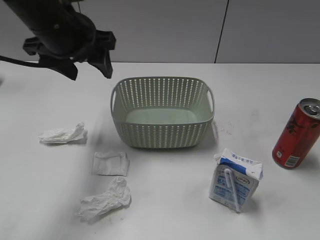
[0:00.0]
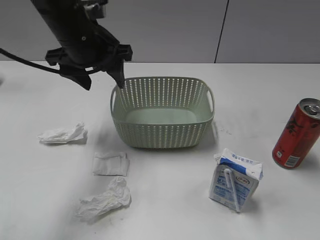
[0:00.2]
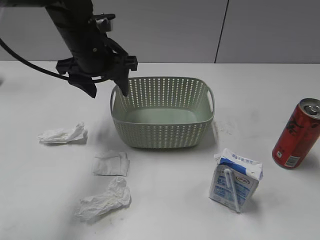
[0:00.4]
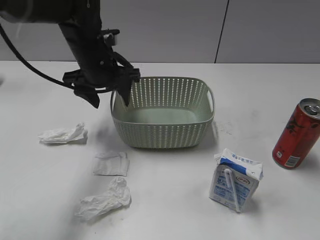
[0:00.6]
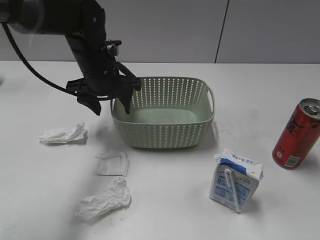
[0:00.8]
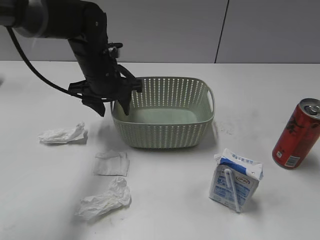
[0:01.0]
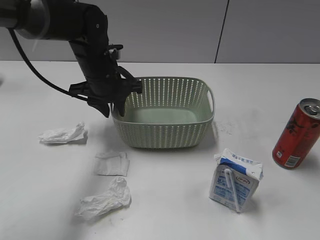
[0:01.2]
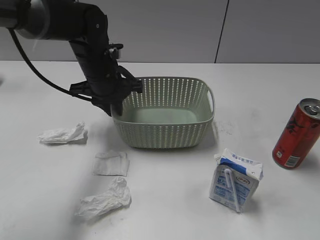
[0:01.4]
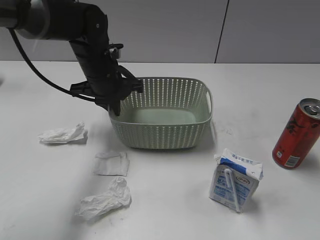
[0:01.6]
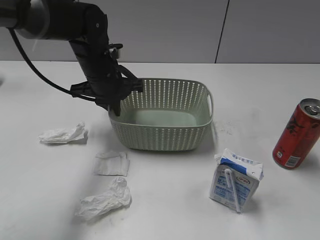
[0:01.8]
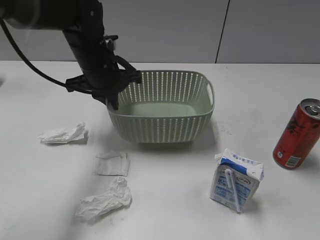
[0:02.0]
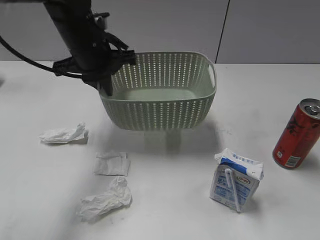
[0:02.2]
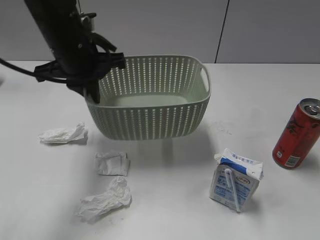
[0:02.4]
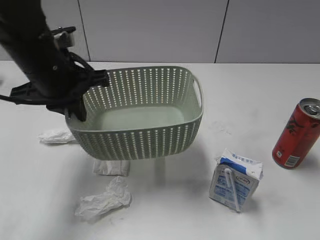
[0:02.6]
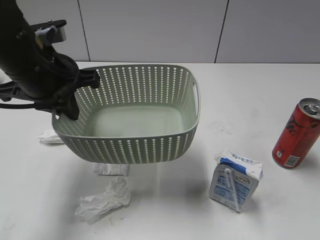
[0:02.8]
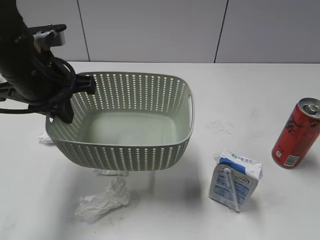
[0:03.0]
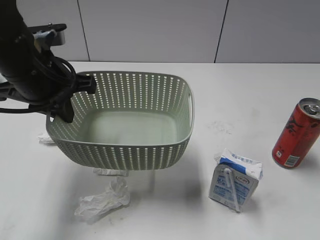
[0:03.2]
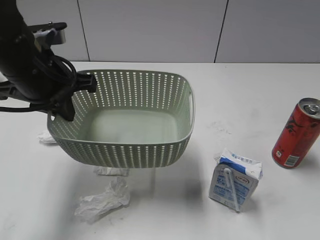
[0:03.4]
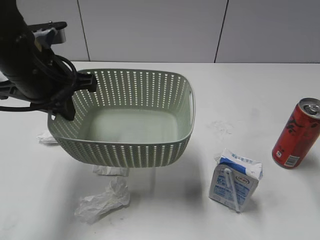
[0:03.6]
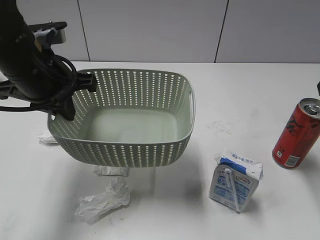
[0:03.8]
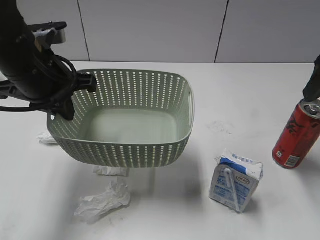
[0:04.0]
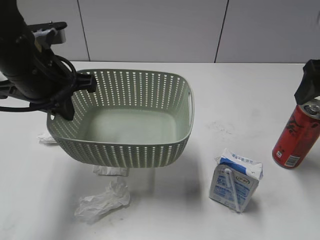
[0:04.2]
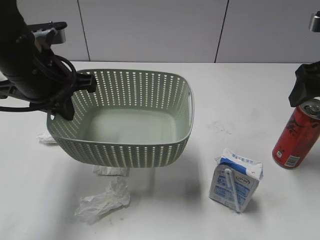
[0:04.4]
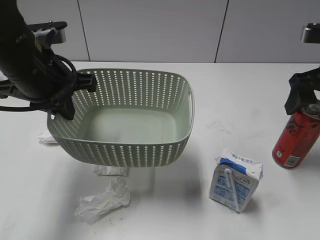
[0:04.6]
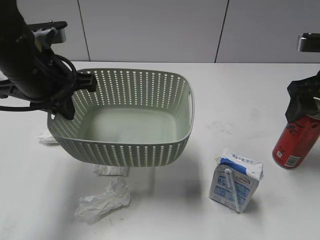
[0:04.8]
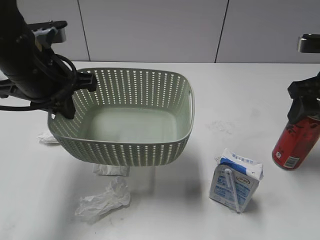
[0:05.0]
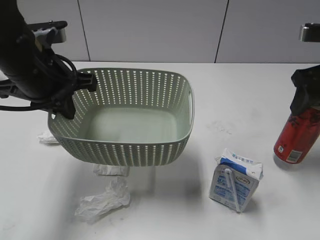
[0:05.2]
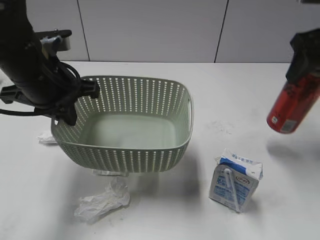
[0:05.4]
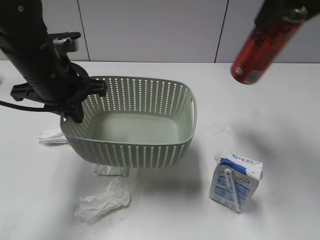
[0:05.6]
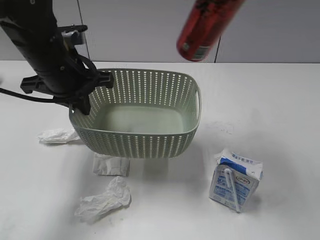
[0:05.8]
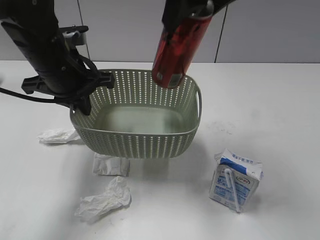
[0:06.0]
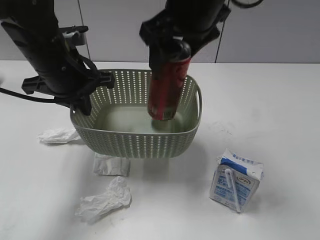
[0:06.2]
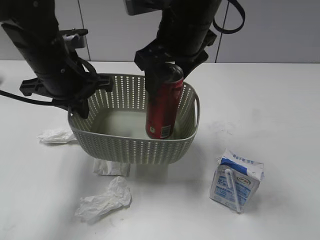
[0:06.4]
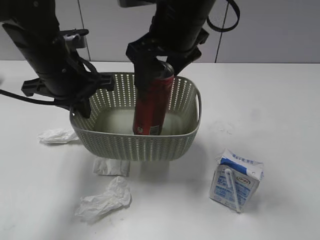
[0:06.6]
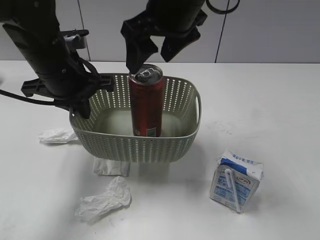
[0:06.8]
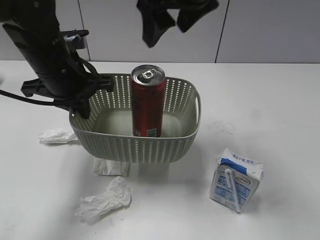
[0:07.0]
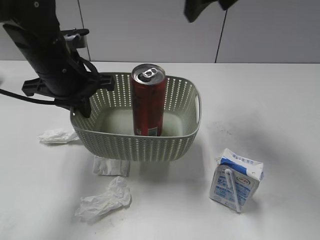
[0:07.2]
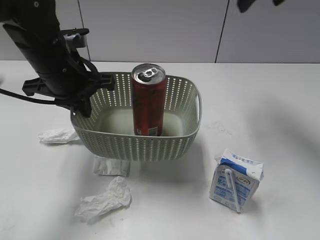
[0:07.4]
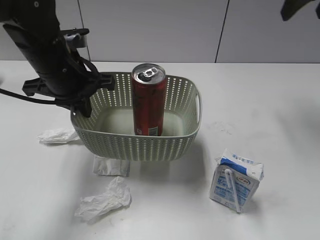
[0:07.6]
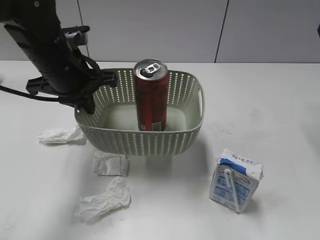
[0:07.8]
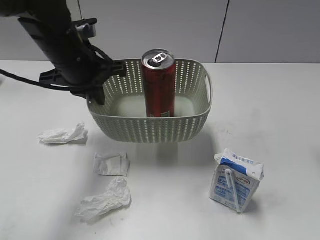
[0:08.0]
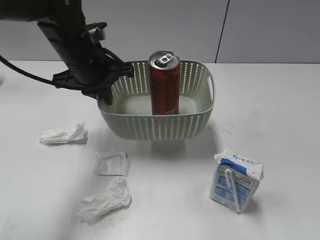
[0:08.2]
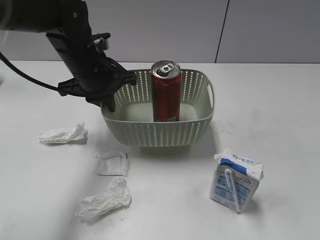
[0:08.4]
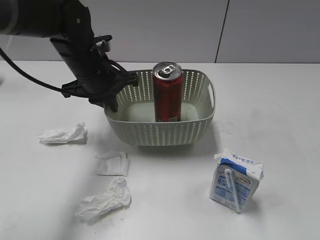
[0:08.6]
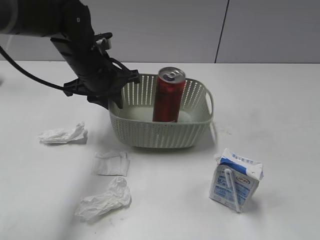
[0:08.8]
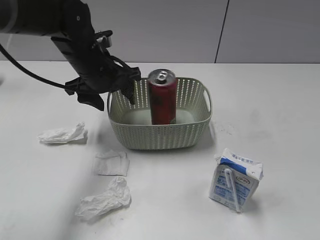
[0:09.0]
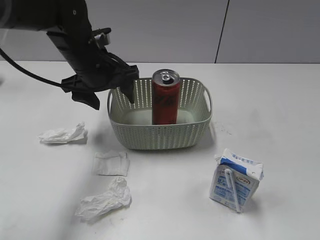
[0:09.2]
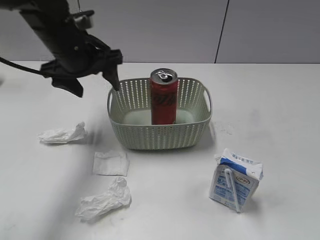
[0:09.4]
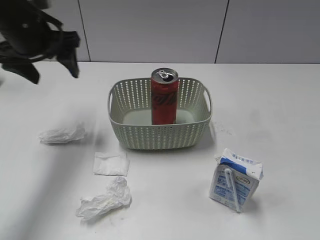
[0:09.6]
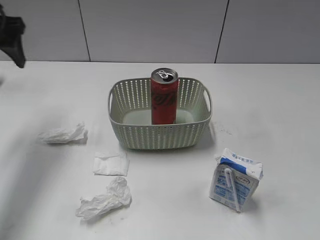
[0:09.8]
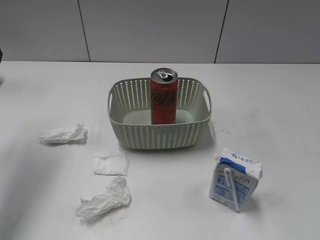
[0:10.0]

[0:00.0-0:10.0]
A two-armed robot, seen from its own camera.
Step, 0.0 to 1.6 s: Grasp the basket with left gripper.
Step, 1.8 to 3.6 s: Lift the basket with left gripper.
Step, 3.8 to 5.0 s: Grasp the cola can with right gripper.
Step, 5.2 to 6.8 s: Place the cola can in the basket with right gripper.
0.0 to 1.4 s: The left gripper travels downward and forward by some 10 cm, and closes up.
1.4 to 2.8 s: The left gripper goes some 15 cm backward, upward and to the left.
2.8 to 4.2 s: The right gripper moves forward, roughly 30 cm, and opens up.
4.2 to 5.8 s: The right gripper heads to the left and upward, covering some 25 cm, and closes.
5.8 to 7.2 s: The right gripper travels forward by about 10 cm, moves about 15 cm downward and comes back, and opens.
7.2 to 8.6 s: The right gripper is displaced backward and to the right by approximately 35 cm, while the left gripper moves forward, about 5 cm.
8.6 to 10.0 s: The left gripper goes about 25 cm to the left, upward and backward, and opens up, while the right gripper shifts roughly 10 cm backward.

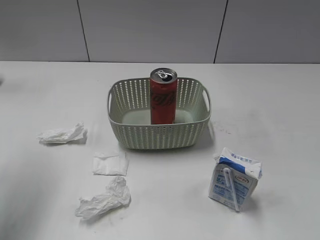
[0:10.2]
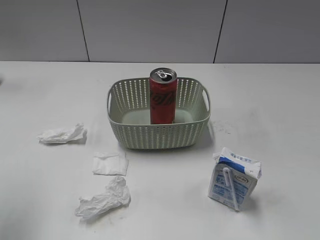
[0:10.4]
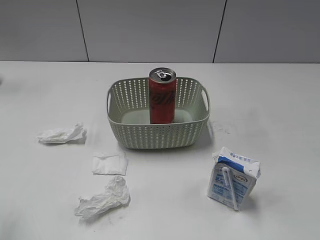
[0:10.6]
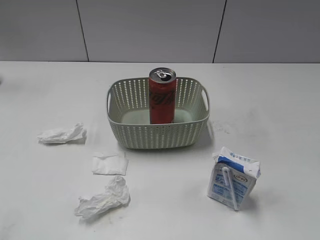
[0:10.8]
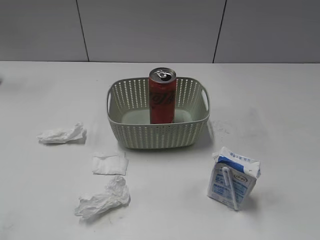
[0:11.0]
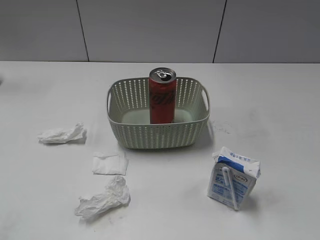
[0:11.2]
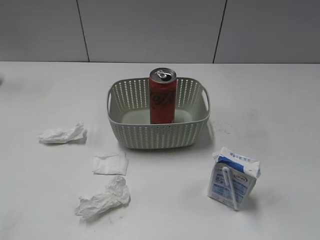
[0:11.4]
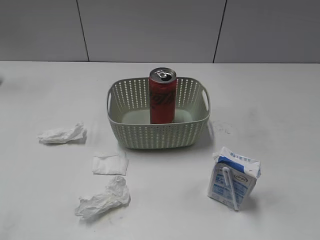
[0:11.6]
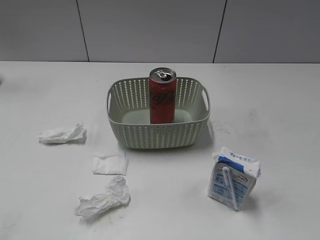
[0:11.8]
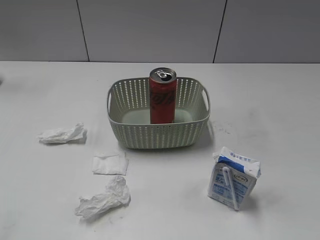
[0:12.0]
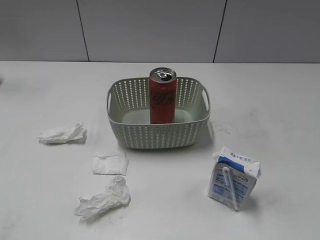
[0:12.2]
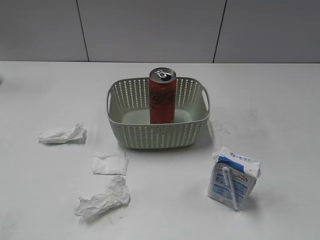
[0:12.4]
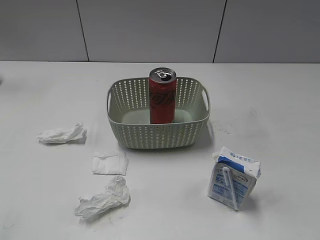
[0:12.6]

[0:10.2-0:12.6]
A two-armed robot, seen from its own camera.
10.2 to 11.4 s: The left gripper moves backward, some 25 cm.

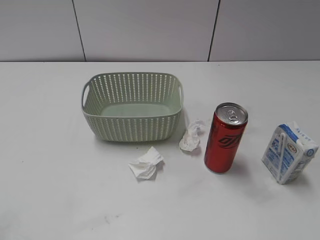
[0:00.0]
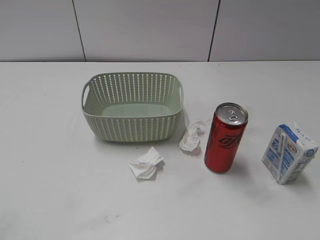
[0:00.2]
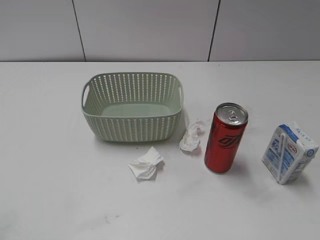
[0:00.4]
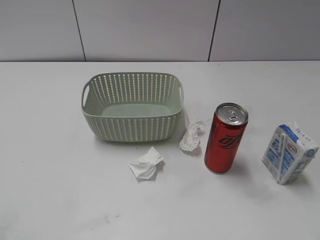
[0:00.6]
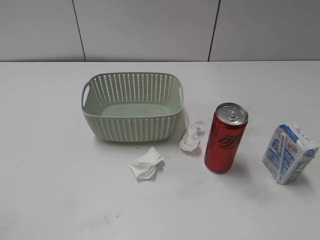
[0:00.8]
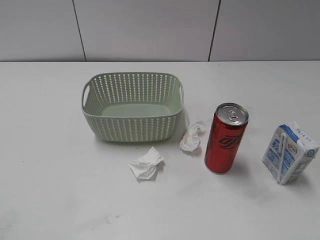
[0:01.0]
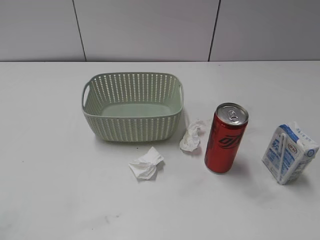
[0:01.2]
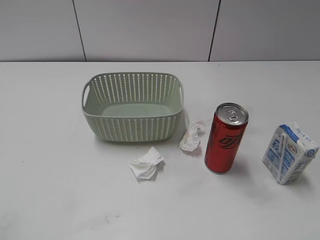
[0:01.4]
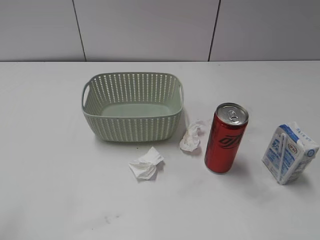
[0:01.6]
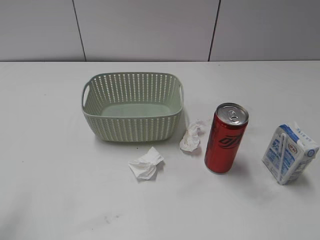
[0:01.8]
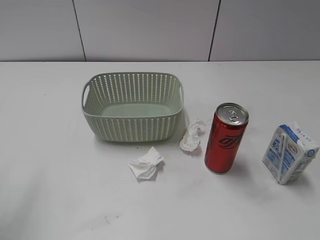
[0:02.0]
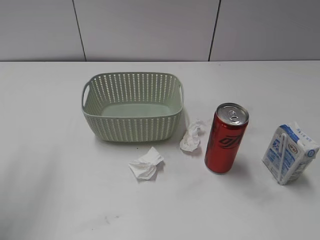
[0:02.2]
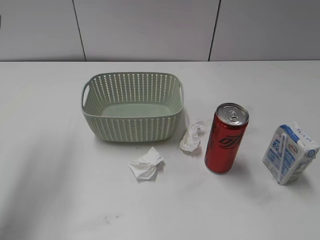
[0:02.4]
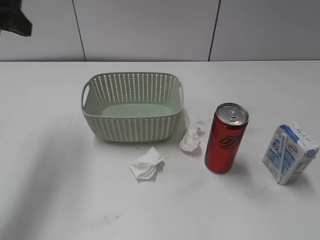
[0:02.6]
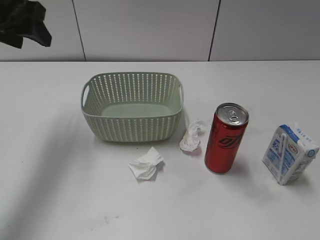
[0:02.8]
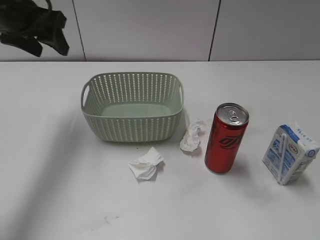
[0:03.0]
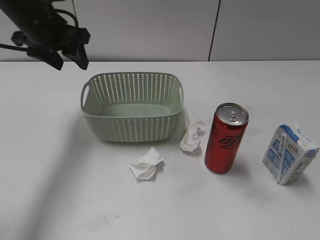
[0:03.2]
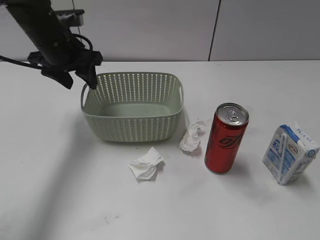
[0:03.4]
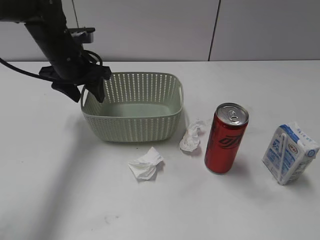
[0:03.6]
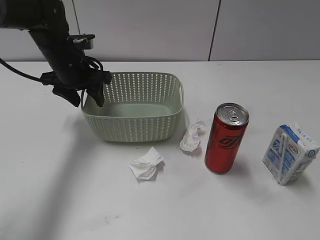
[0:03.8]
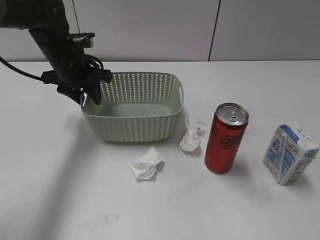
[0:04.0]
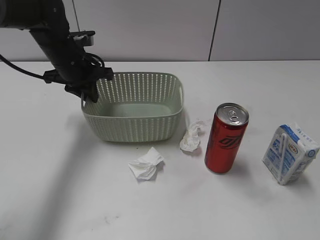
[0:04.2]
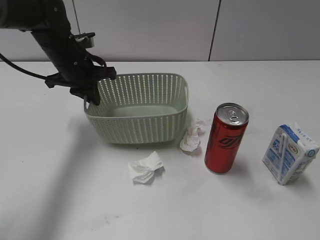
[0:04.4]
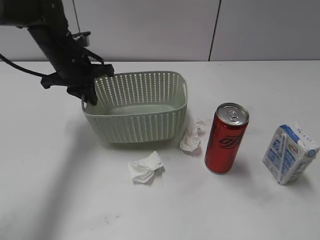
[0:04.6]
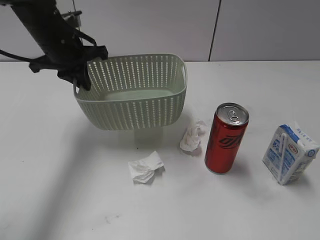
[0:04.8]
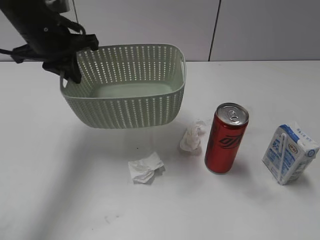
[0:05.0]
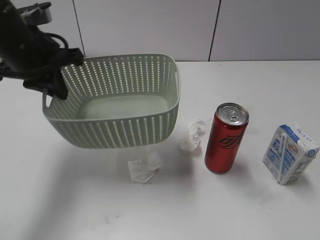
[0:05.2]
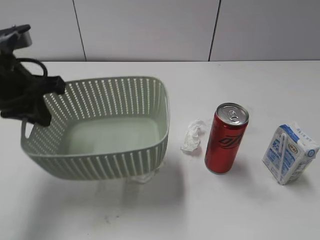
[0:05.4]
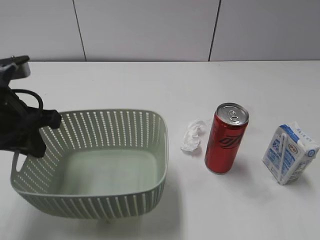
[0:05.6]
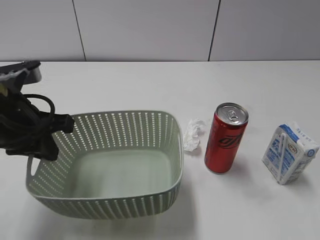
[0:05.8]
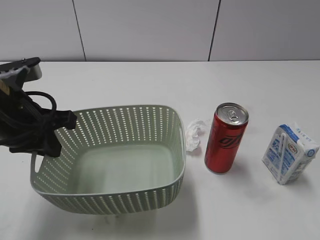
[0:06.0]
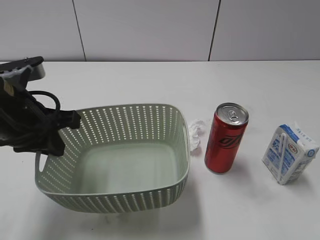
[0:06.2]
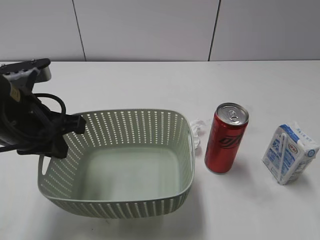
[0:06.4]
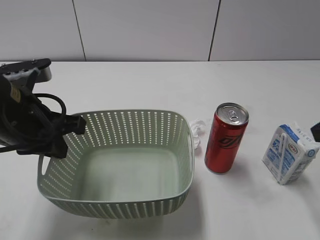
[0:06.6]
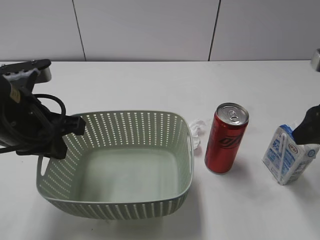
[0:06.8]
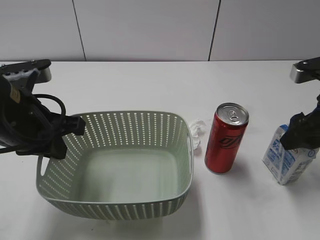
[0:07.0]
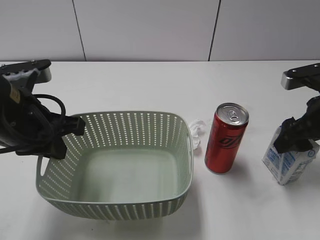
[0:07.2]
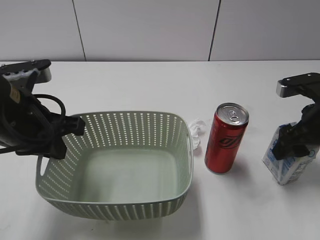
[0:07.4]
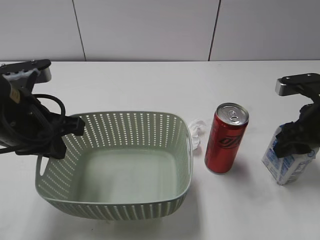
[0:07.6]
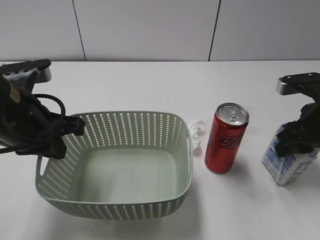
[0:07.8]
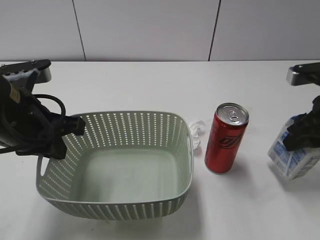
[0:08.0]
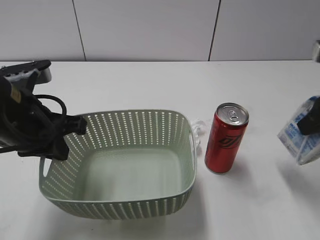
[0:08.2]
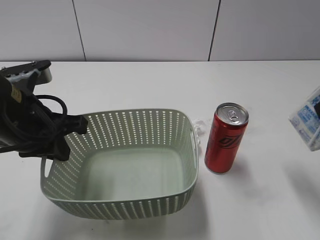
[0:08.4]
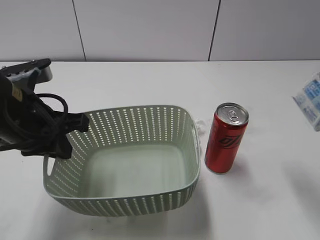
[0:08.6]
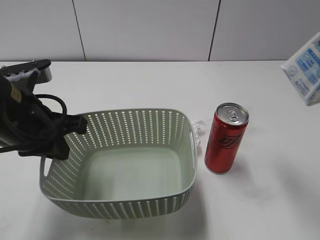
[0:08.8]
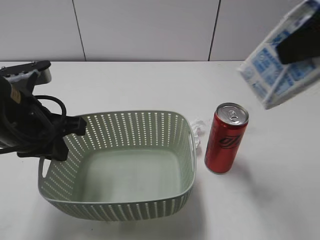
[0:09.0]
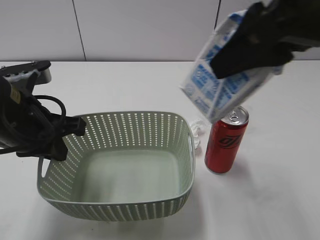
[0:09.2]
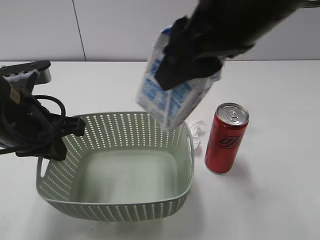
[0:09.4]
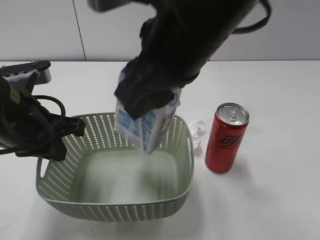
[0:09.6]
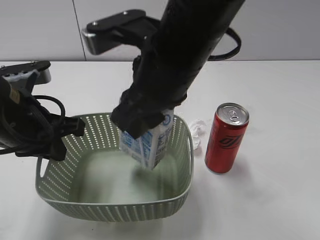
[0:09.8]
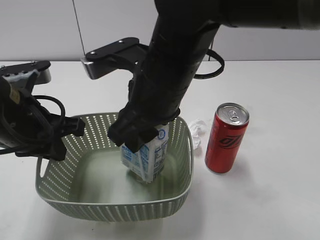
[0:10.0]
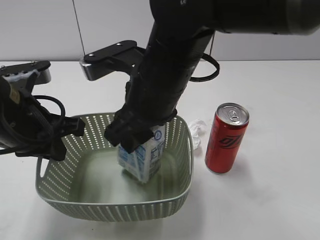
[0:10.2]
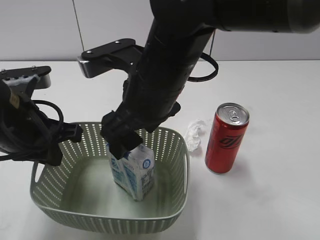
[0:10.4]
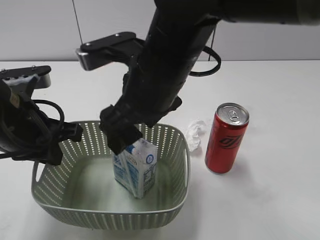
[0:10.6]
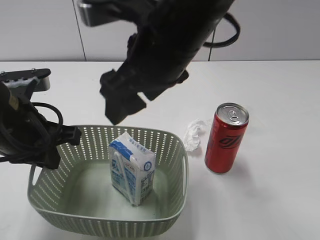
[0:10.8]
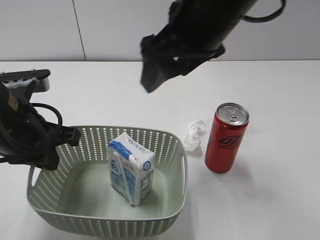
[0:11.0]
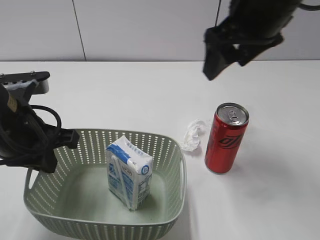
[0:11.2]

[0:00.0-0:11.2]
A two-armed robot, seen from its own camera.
Step, 2.6 to 4.4 s: Grasp the basket with left gripper.
Step, 4.6 to 5.8 s: Lift the basket with left gripper.
Step, 6.0 to 7.6 s: Grasp the milk with right gripper.
Step, 7.8 to 10.8 s: Place the milk in the basket with right gripper.
1.6 to 3.2 s: The left gripper shifts roughly 30 cm forward.
3.2 to 4.8 s: The left gripper travels downward and back again, some 10 cm each way, and closes its fingers.
4.8 to 6.4 s: The right gripper moves forward, some 15 cm; the left gripper goes approximately 20 cm backward.
6.4 to 8.0 s: The right gripper is displaced forward and downward by about 15 cm, and closes its fingers.
8.0 to 9.6 s: The right gripper shifts roughly 25 cm to the left and upward.
9.6 to 11.2 s: The right gripper heads to the right and forward, covering some 15 cm, and opens up.
